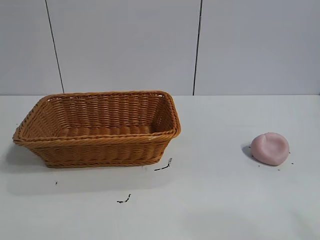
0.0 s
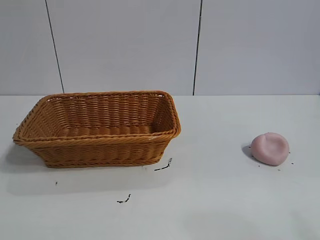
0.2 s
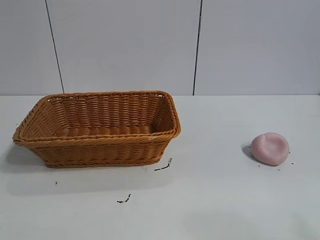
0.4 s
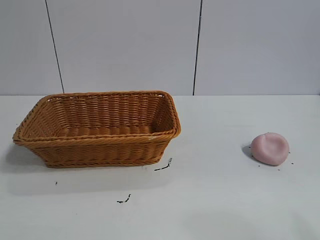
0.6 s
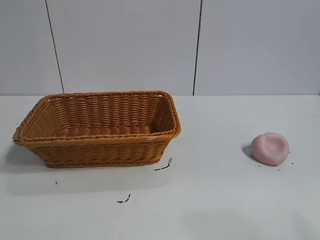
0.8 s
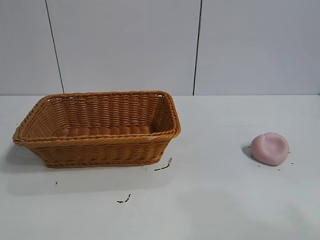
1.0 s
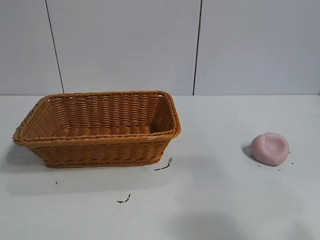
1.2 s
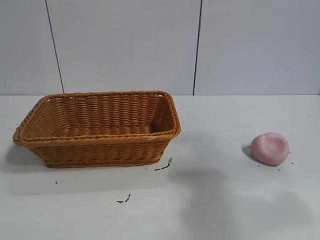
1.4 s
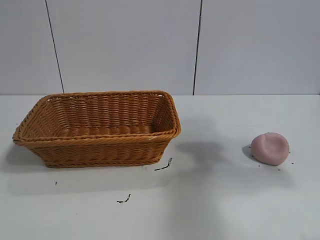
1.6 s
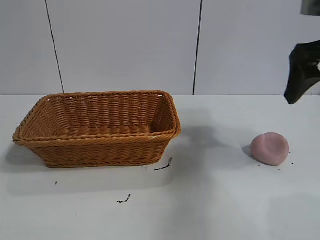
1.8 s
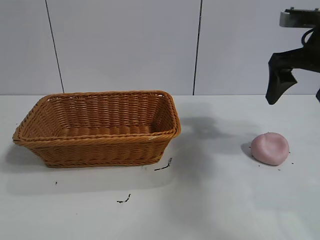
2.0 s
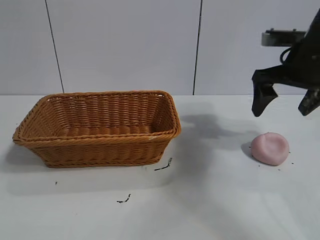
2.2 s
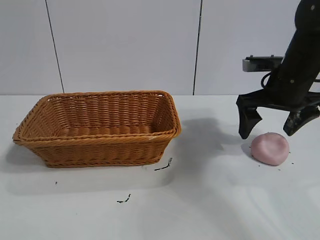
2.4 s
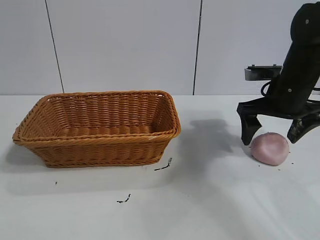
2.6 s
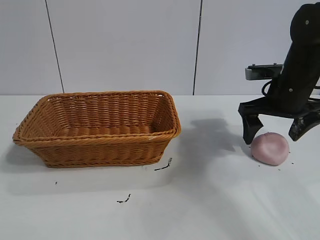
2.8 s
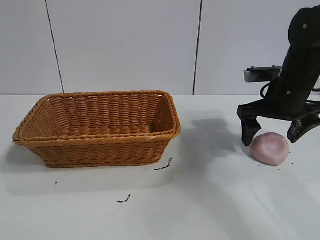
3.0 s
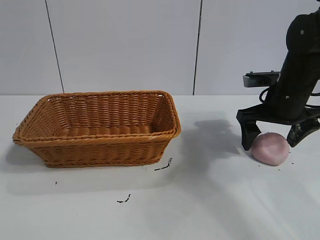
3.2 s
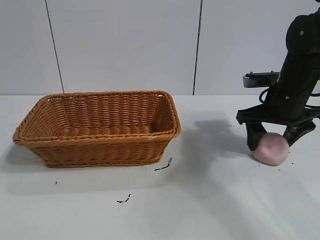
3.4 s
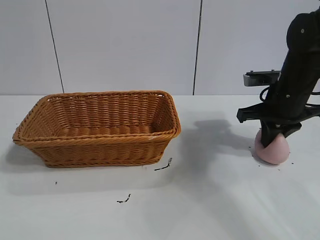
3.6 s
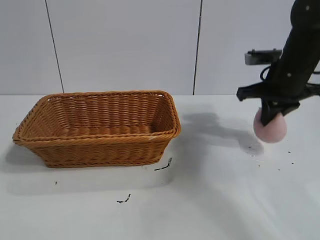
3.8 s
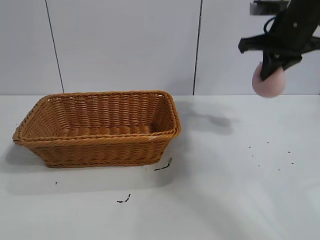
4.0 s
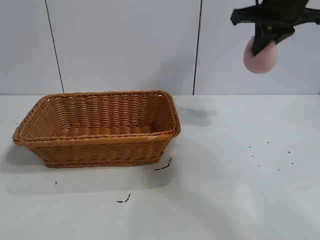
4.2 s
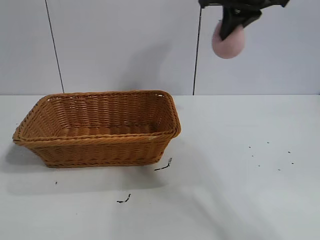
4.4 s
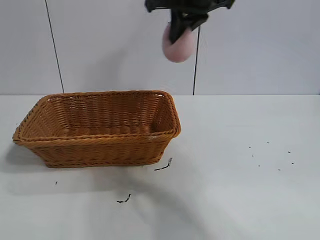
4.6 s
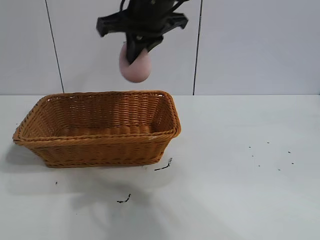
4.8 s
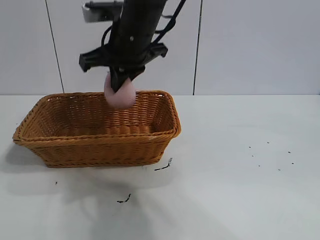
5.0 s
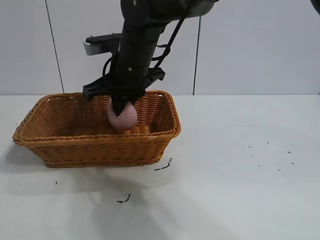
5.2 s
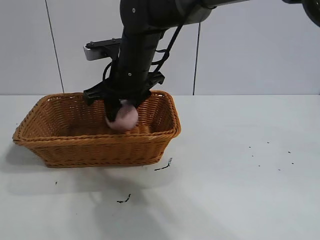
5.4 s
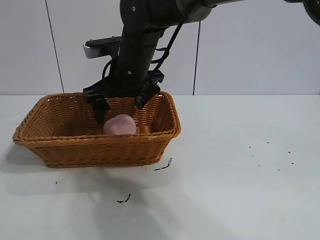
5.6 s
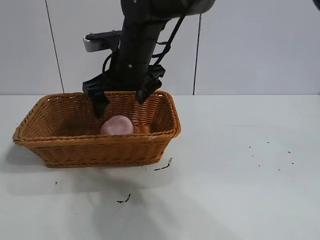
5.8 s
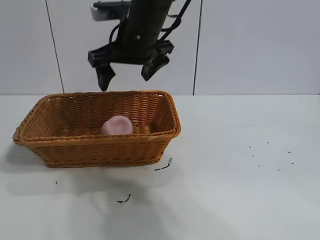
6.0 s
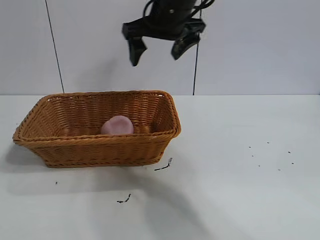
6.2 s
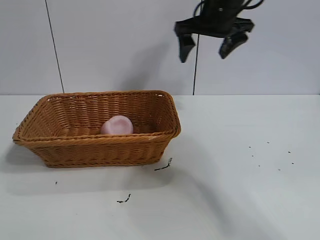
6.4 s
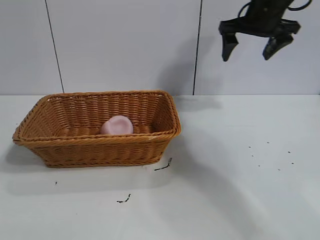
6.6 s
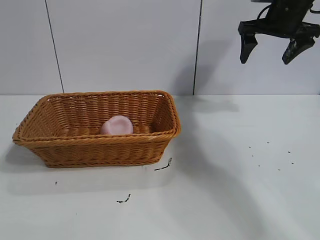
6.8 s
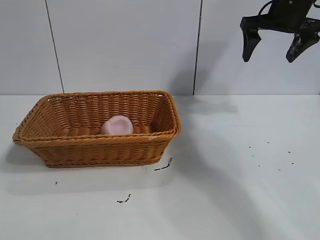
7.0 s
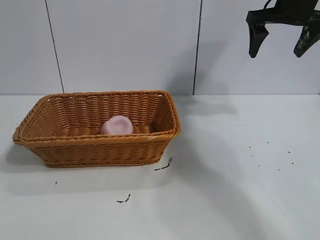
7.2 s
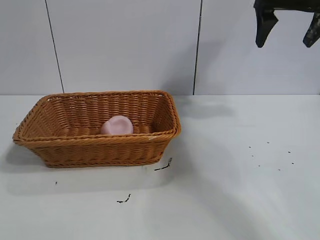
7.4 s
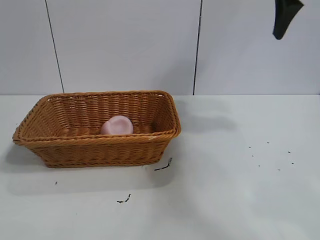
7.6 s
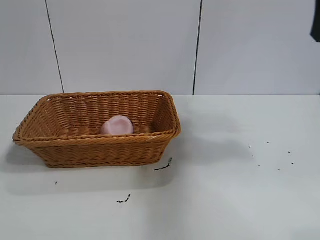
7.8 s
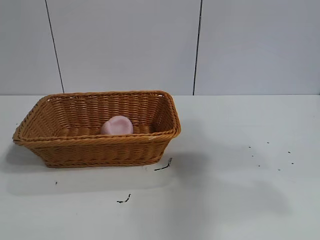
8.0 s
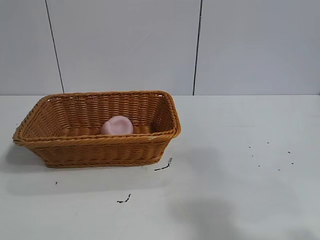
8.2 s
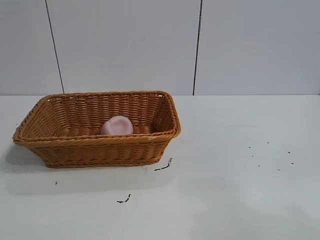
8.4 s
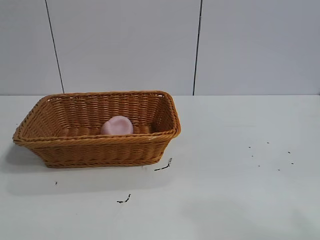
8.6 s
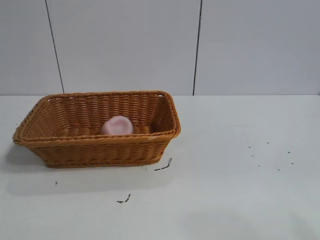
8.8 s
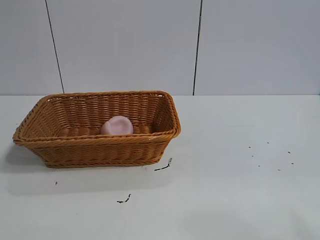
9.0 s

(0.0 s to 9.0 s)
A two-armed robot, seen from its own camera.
Task of the whole recording: pick up the peach and put it into the basket.
Step, 1.0 s - 3.4 s: Grasp the peach with right gripper.
Step, 3.8 s - 5.4 s: Place the peach in the basket with right gripper.
